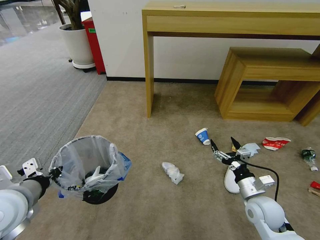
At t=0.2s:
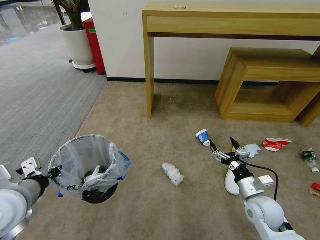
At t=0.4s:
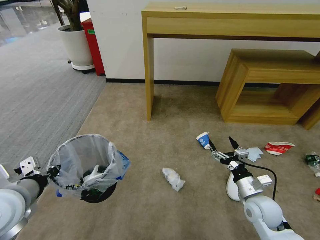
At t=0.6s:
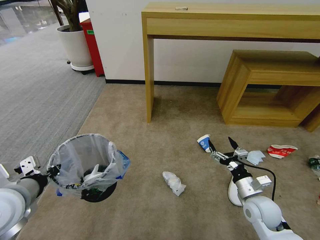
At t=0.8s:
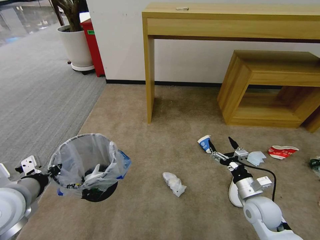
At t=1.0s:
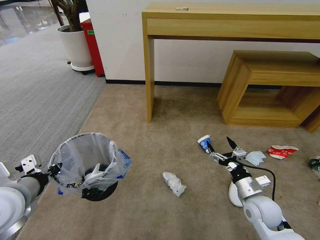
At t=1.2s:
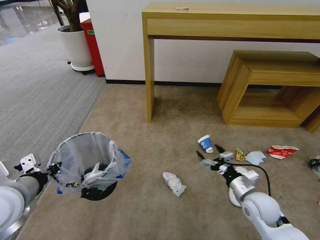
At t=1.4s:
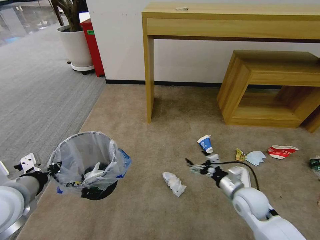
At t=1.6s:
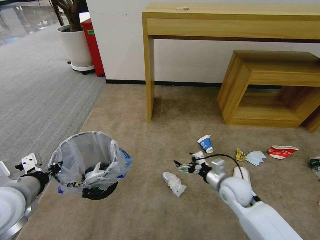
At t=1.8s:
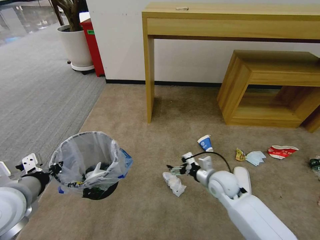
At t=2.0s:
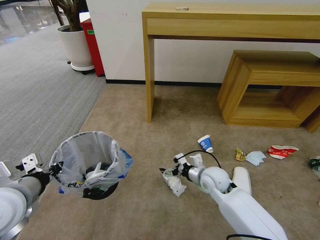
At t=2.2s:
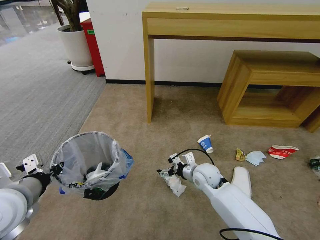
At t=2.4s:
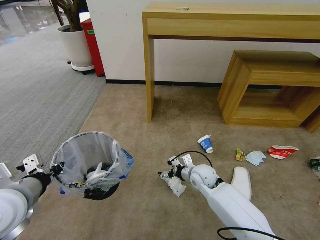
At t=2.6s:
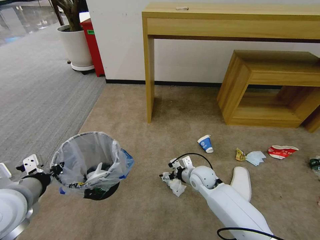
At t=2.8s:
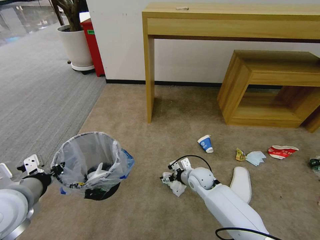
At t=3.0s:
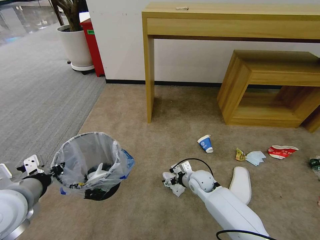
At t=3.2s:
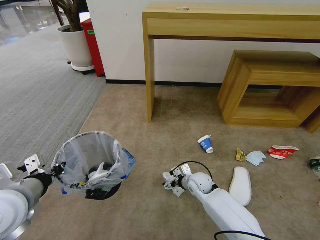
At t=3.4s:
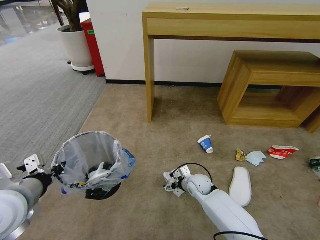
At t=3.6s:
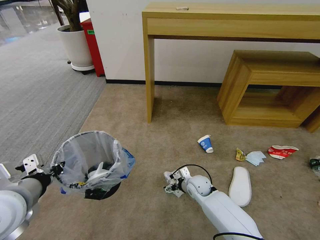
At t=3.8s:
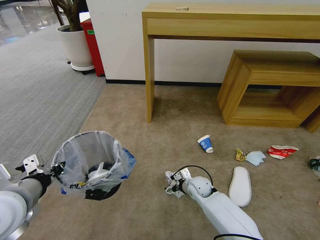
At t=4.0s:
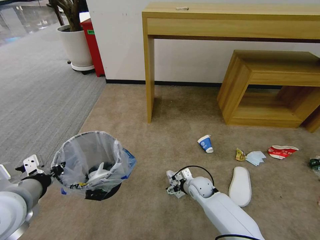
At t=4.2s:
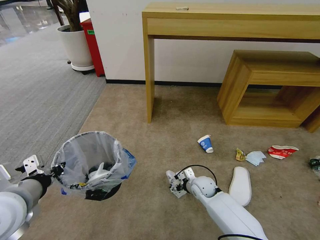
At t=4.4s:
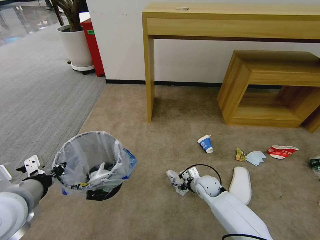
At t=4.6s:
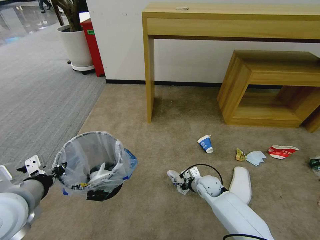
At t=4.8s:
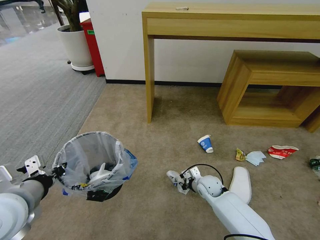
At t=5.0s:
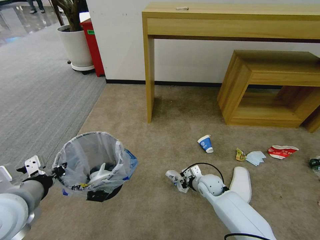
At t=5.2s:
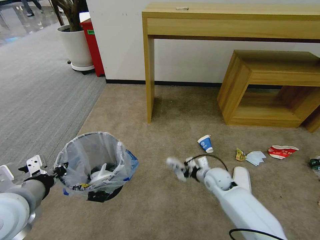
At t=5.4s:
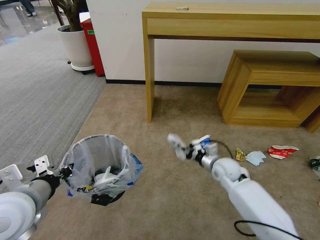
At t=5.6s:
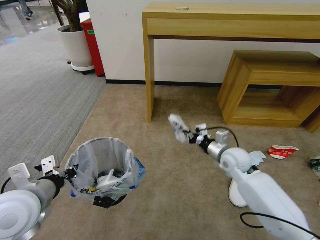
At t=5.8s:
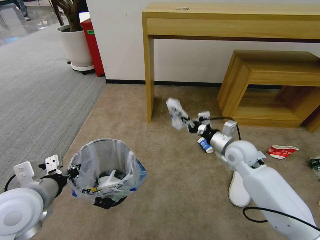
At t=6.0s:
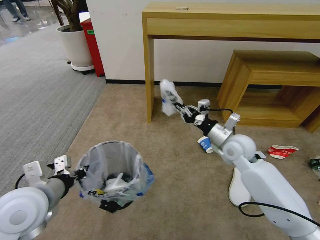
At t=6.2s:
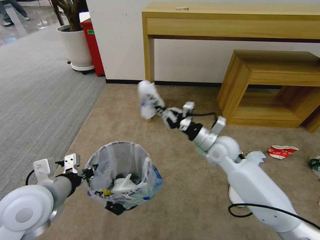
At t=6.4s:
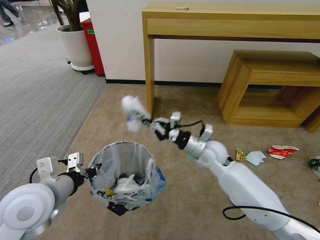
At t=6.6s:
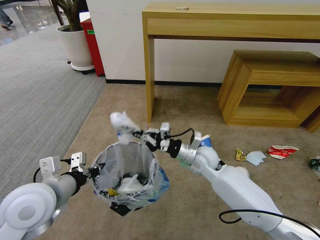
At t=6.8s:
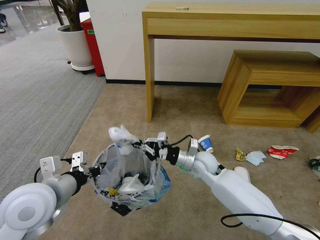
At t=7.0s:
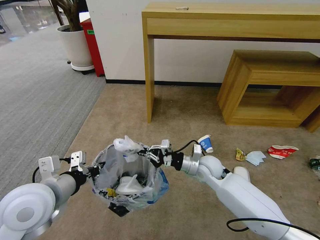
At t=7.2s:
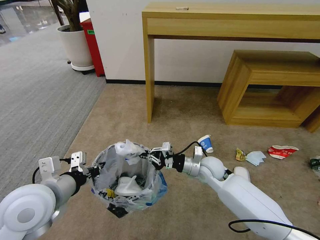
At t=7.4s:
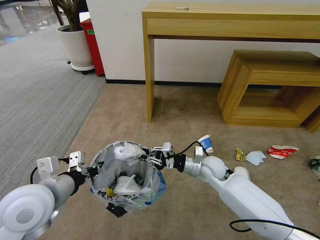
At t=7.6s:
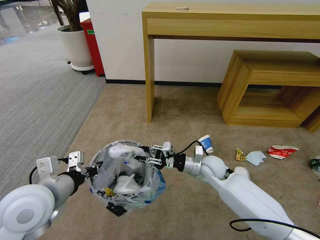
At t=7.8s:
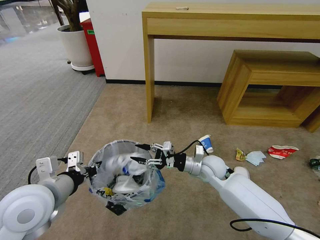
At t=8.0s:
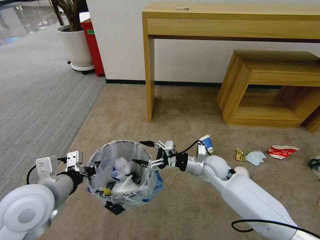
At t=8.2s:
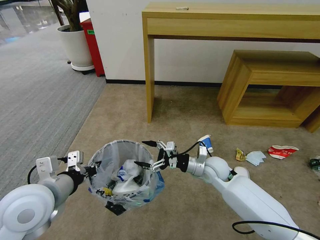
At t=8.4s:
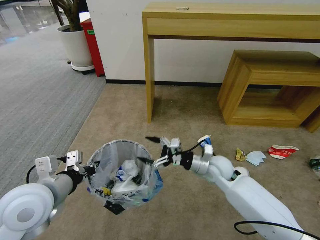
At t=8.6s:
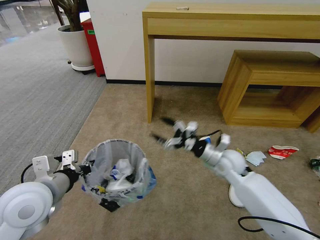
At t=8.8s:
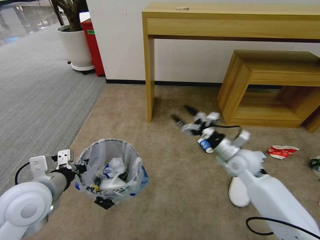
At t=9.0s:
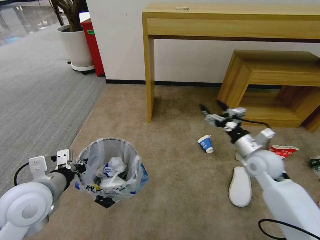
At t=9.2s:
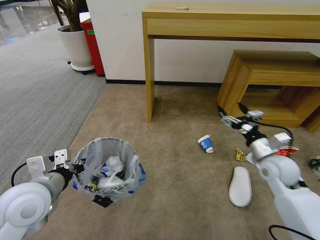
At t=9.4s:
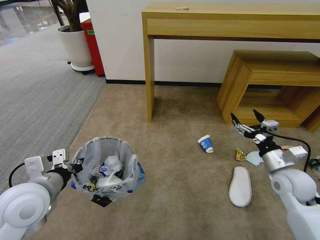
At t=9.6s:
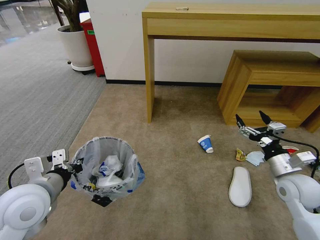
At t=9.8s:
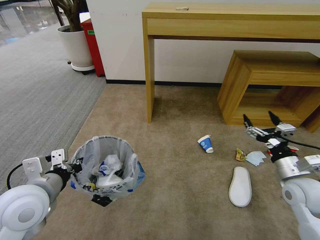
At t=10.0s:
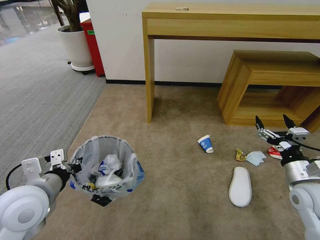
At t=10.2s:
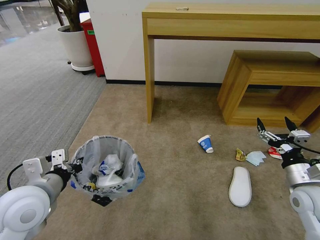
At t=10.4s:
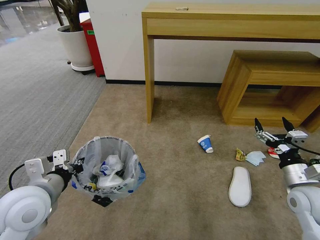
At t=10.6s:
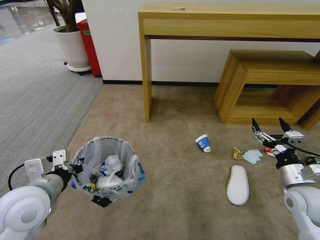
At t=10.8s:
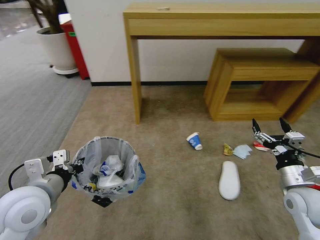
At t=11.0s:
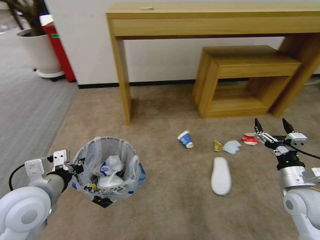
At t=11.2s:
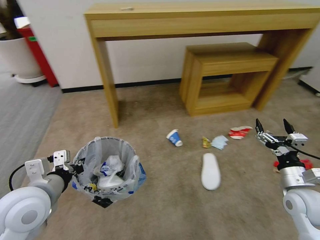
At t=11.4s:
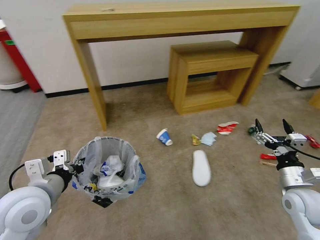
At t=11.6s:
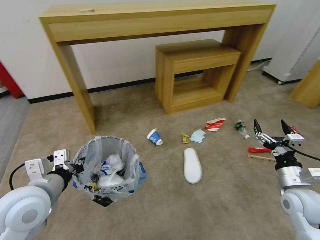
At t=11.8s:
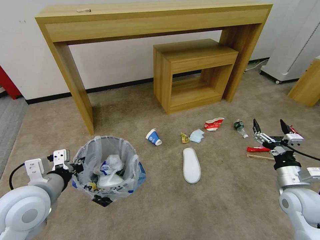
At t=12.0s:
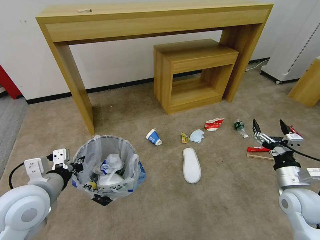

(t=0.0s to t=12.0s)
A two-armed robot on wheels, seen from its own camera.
Task of the whole recording: Pick up the trash bin and place the garbage on the floor into it.
t=0.0s - t=1.6s: The right gripper is displaced to the left and forward by approximately 10 cm.
t=1.6s - t=3.0s: The right gripper shifts approximately 15 cm to the left, downward and forward.
t=3.0s - t=4.4s: The grippers stay close to where they were, moving slightly.
t=4.4s - t=6.0s: The right gripper heads upward, covering roughly 25 cm, and closes.
t=6.0s - t=7.6s: The right gripper travels downward and to the left by some 10 cm, and opens.
t=7.6s - t=9.0s: The right gripper shifts approximately 15 cm to the right and upward, and opens up.
t=9.0s - t=10.4s: The right gripper heads backward and to the right, covering about 15 cm.

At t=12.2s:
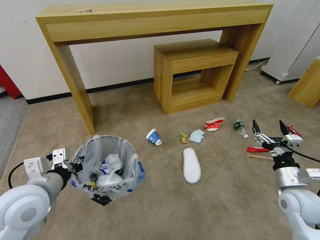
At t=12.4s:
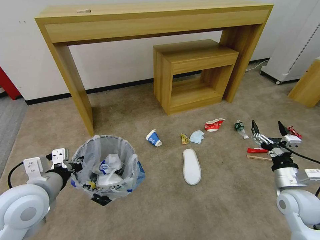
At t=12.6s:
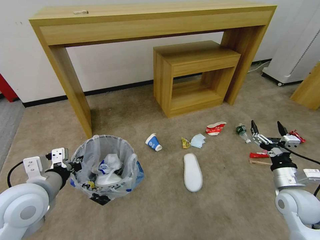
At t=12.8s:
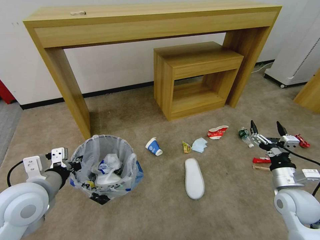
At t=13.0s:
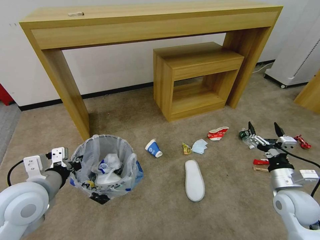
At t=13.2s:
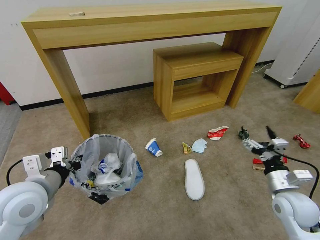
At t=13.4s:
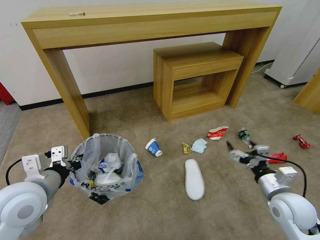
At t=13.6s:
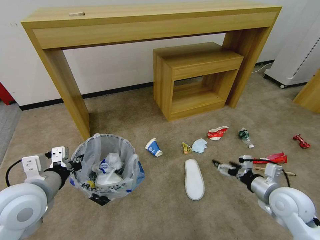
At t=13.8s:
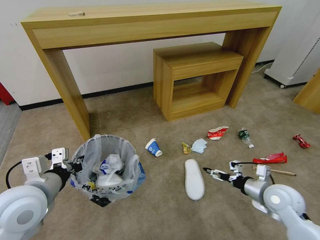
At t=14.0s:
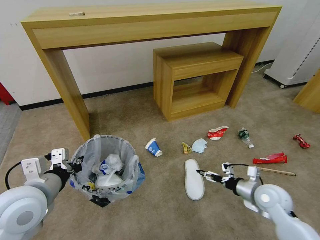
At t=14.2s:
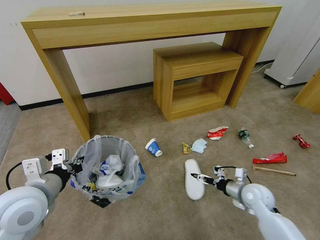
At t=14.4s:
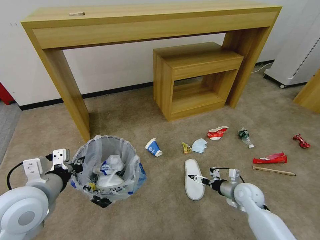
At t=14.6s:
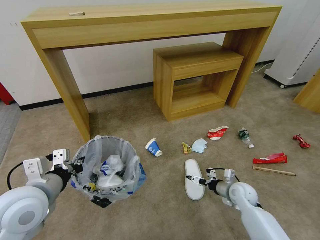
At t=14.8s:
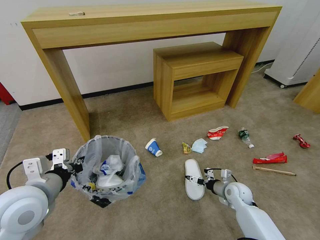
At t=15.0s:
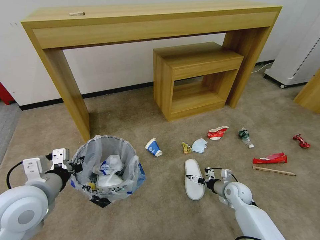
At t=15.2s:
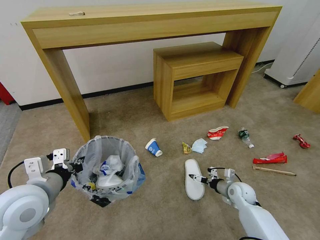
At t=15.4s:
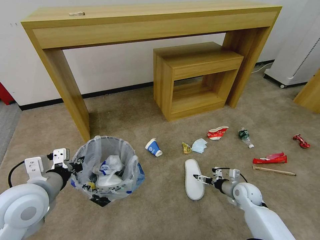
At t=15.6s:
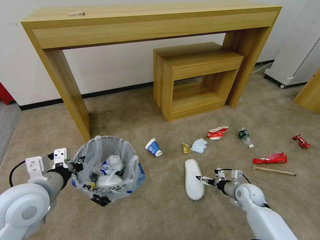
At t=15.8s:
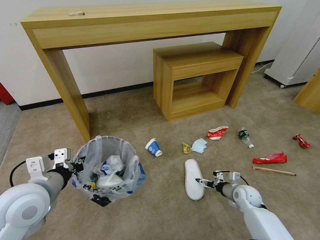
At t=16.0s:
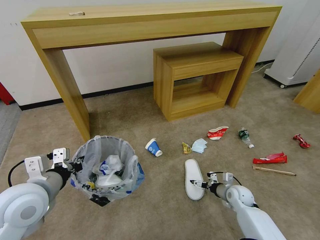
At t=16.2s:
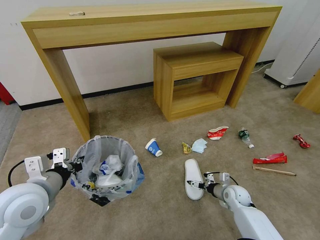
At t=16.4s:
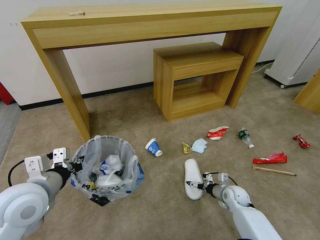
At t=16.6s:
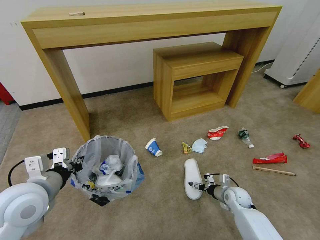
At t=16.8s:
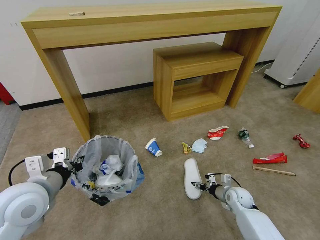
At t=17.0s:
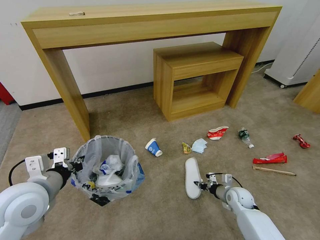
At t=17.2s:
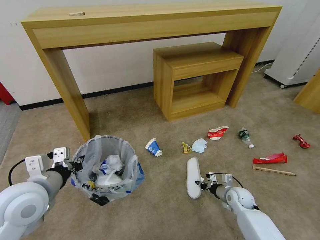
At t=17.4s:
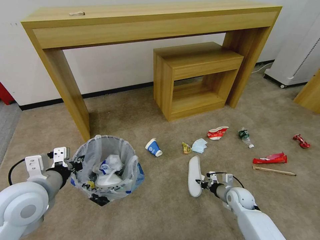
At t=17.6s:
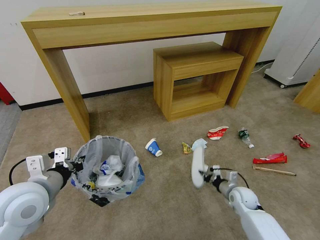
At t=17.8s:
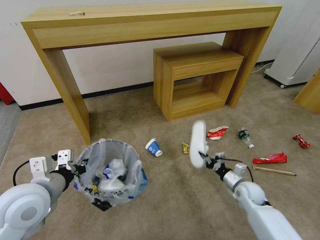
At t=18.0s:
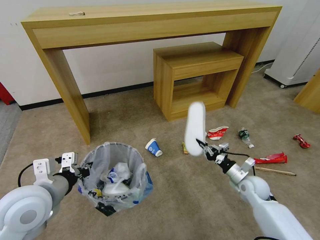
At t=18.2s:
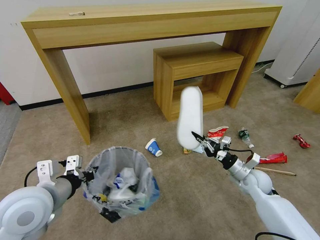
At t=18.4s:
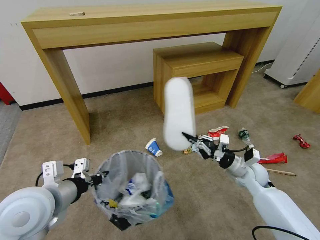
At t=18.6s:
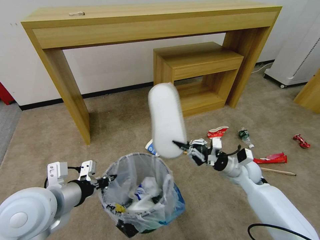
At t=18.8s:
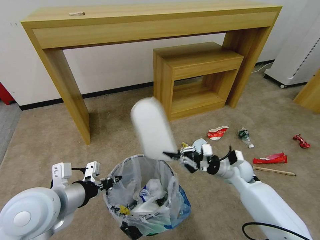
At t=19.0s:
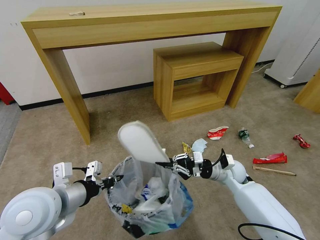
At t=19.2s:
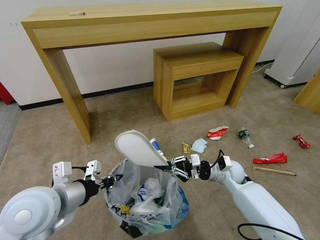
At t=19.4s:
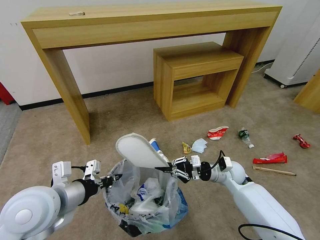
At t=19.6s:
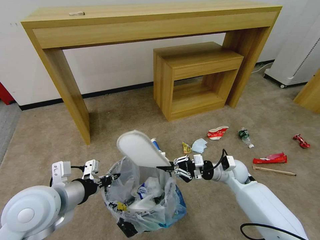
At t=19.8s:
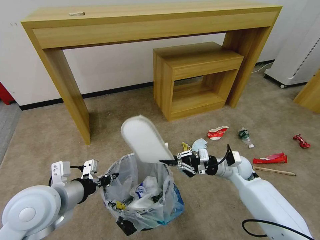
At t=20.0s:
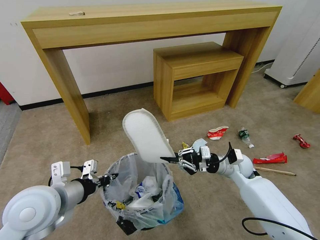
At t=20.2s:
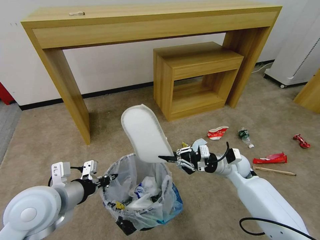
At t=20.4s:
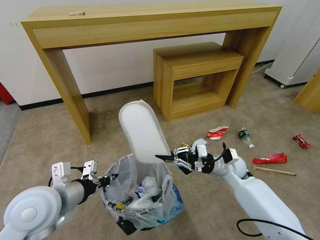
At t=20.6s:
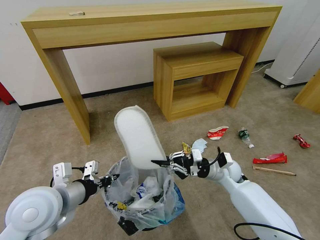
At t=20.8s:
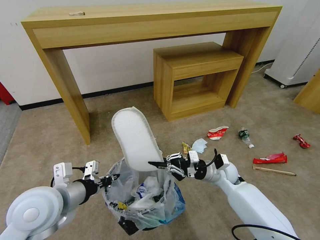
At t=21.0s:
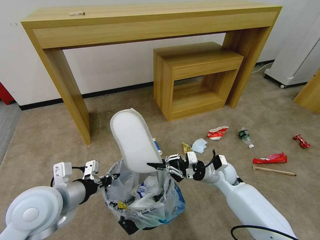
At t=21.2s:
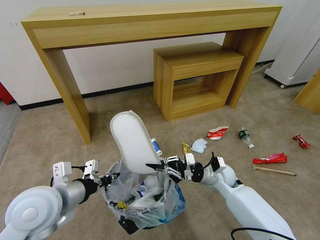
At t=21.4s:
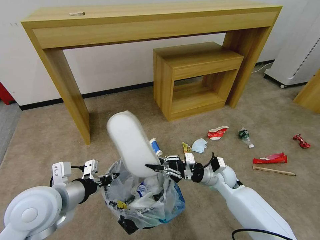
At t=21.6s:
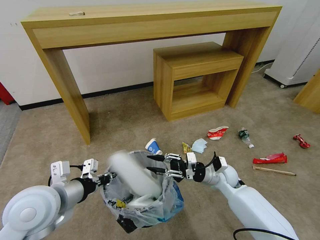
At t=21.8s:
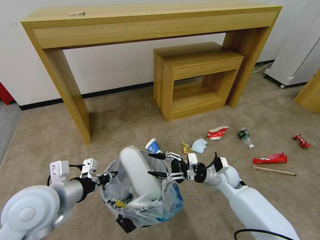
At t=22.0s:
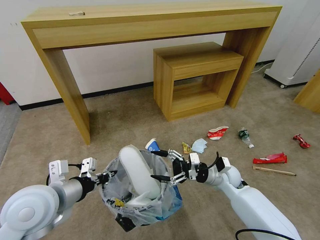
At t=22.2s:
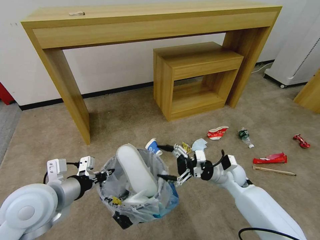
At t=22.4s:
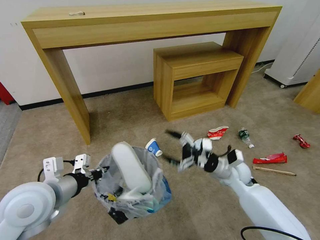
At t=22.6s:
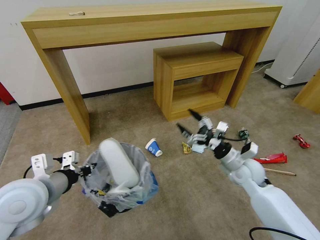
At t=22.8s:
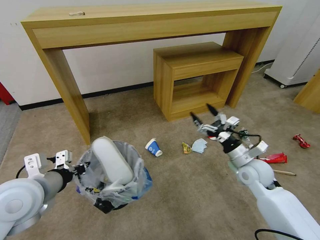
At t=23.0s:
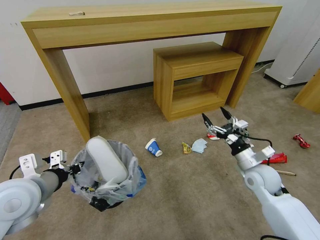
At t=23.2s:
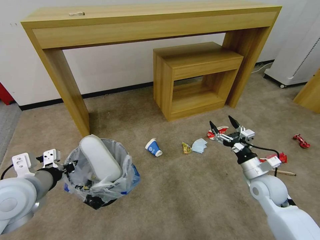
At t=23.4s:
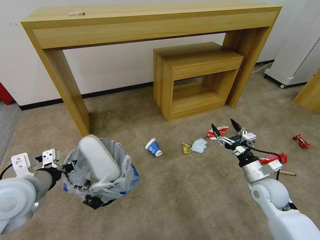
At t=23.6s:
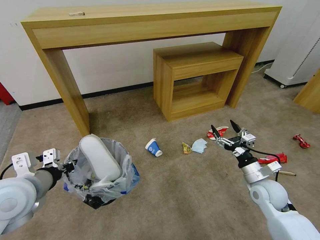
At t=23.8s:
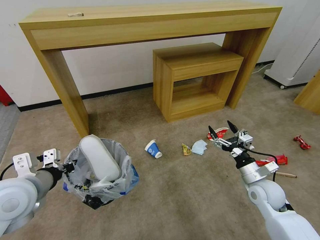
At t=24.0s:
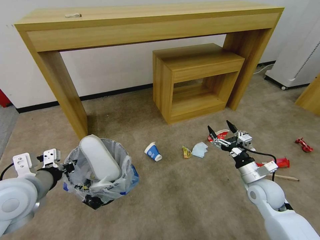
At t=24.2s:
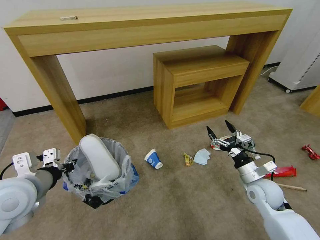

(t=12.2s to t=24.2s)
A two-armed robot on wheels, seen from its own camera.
Task of the whole recording: Pick up the trash bin and place the garbage on the floor into it.
t=13.8s - t=15.2s: The right gripper travels downward and forward by roughly 15 cm.
t=15.2s - t=16.6s: There are only small adjustments of the grippers.
t=16.6s - t=18.2s: The right gripper is displaced upward by about 15 cm, and closes up.
t=18.2s - t=19.8s: The right gripper goes about 5 cm to the left.
t=19.8s - t=21.2s: The right gripper moves to the left, roughly 5 cm.
t=21.2s - t=22.6s: The right gripper goes roughly 10 cm to the right and upward, and opens.
t=22.6s - t=24.2s: The right gripper heads backward and to the right, covering some 10 cm.
